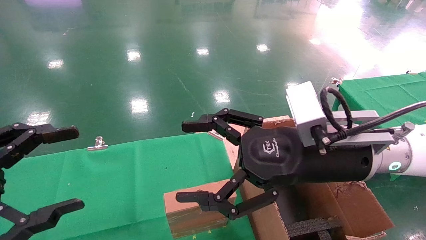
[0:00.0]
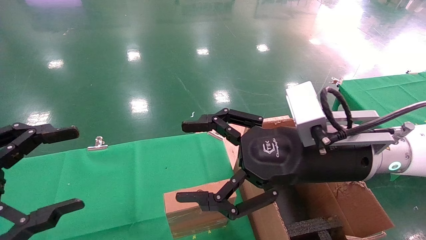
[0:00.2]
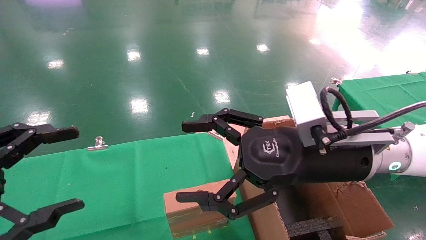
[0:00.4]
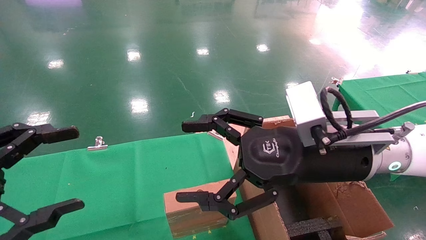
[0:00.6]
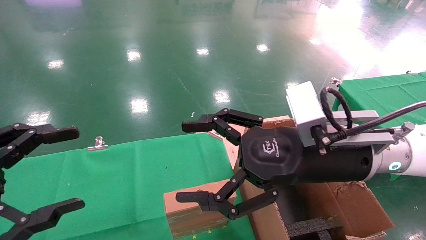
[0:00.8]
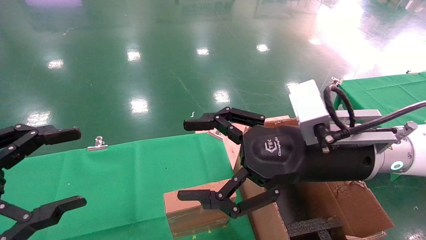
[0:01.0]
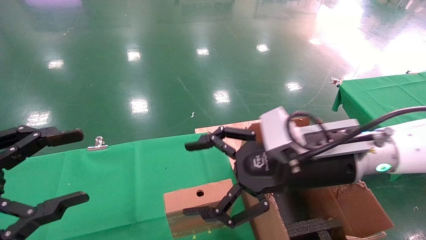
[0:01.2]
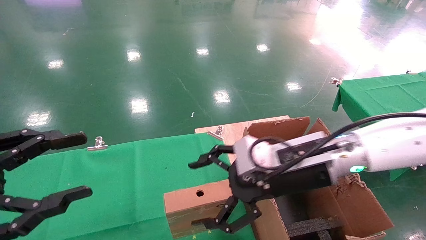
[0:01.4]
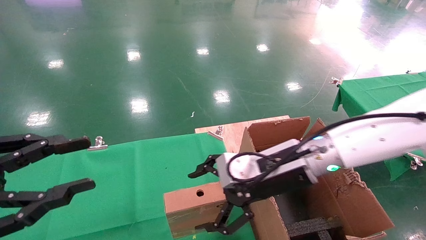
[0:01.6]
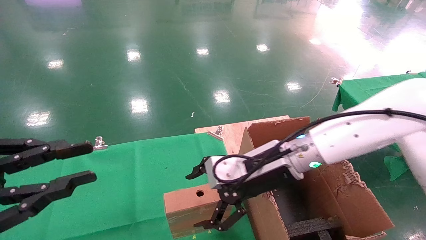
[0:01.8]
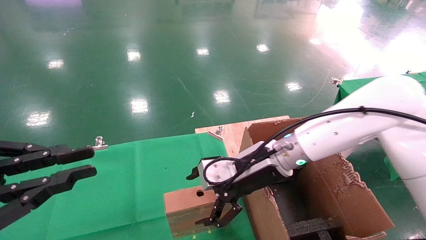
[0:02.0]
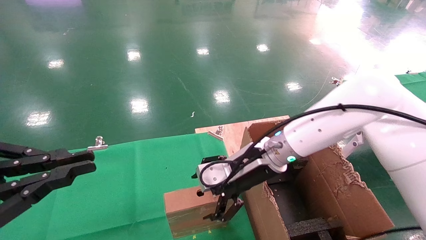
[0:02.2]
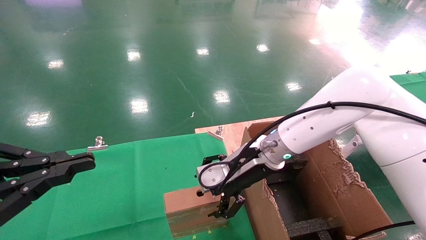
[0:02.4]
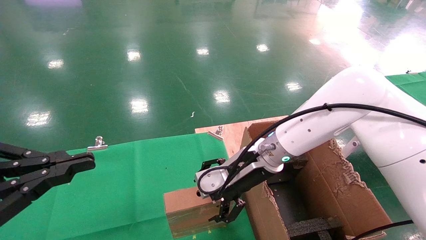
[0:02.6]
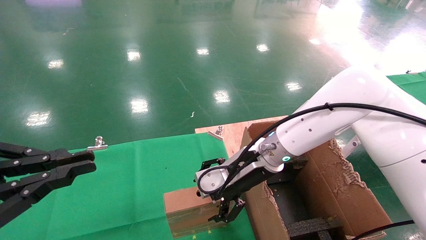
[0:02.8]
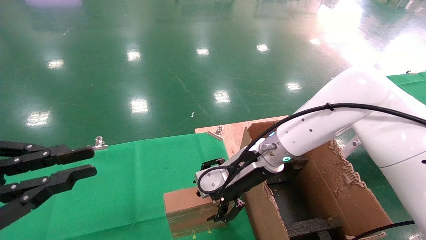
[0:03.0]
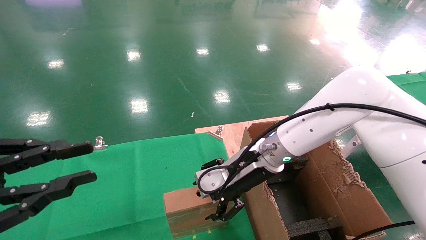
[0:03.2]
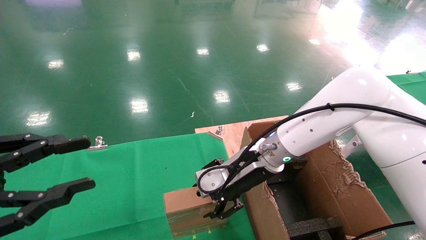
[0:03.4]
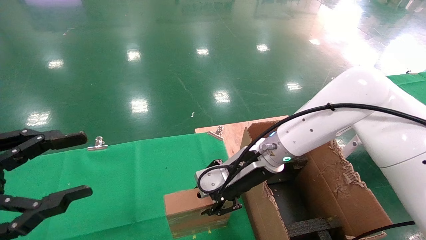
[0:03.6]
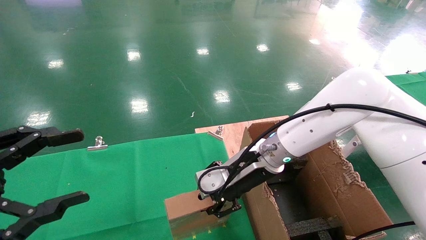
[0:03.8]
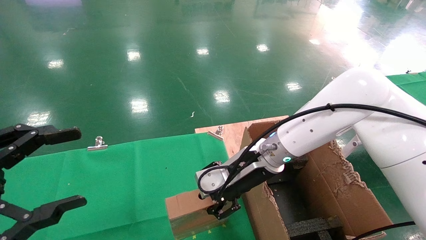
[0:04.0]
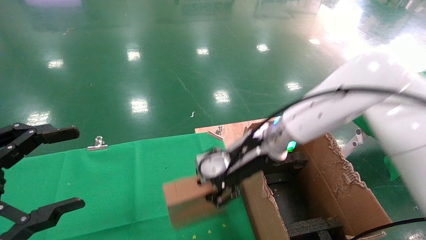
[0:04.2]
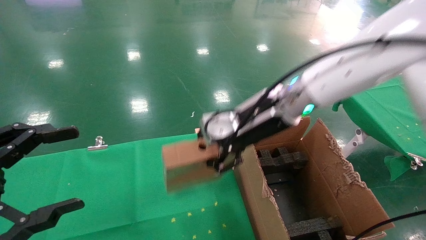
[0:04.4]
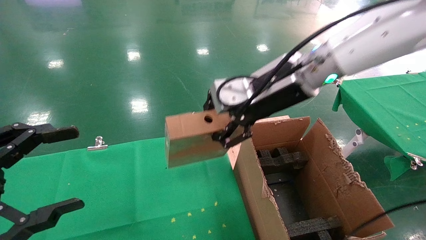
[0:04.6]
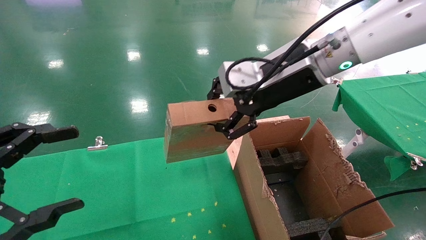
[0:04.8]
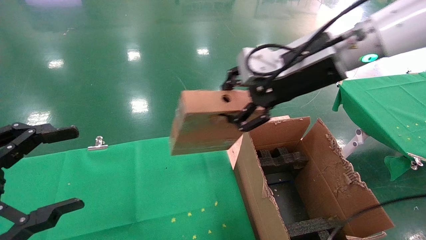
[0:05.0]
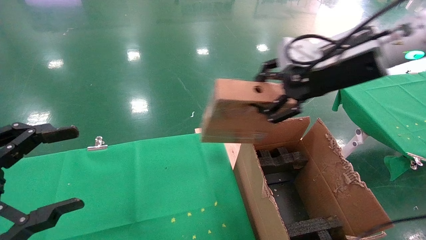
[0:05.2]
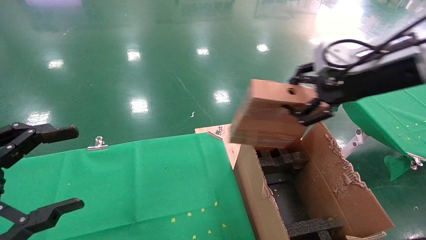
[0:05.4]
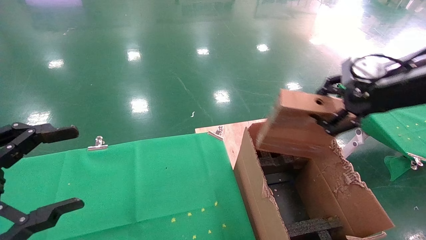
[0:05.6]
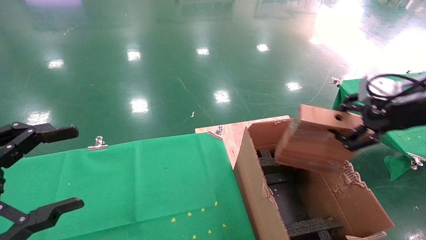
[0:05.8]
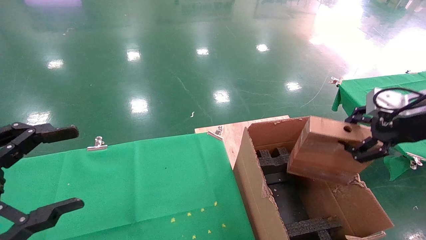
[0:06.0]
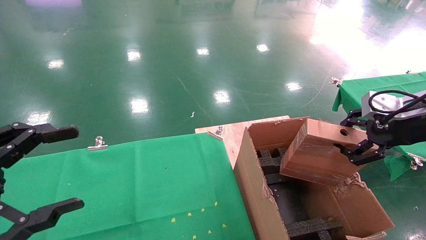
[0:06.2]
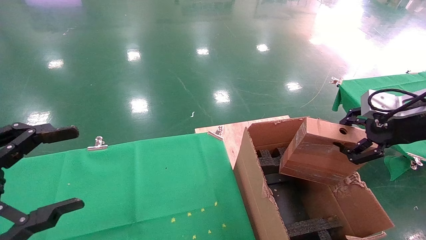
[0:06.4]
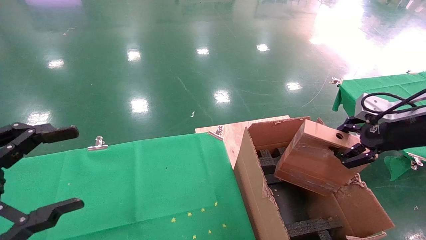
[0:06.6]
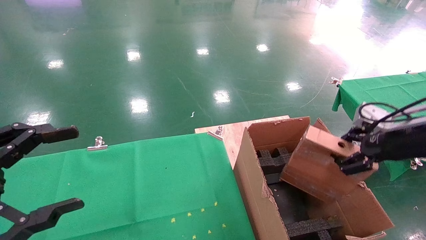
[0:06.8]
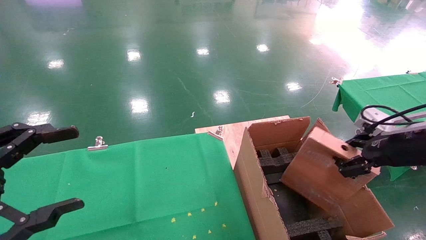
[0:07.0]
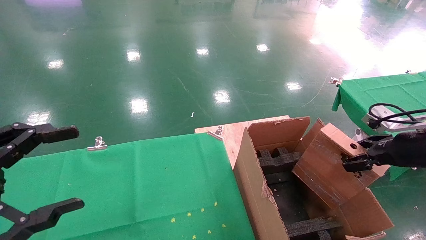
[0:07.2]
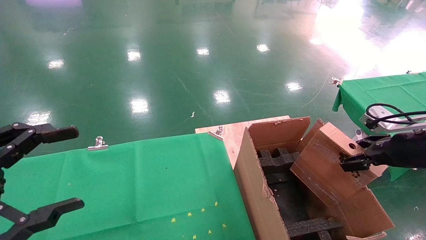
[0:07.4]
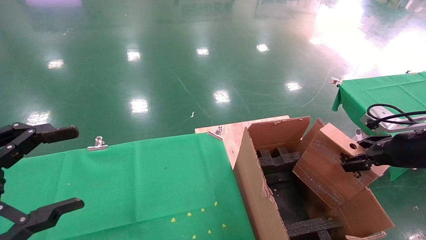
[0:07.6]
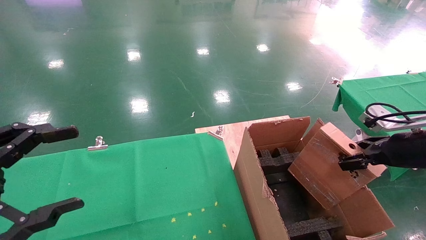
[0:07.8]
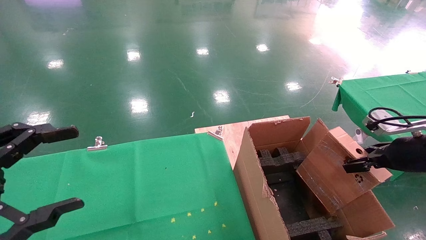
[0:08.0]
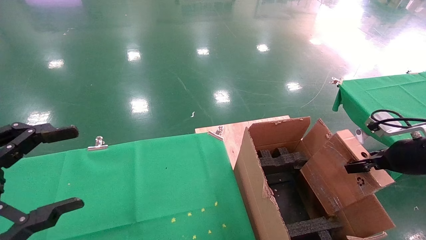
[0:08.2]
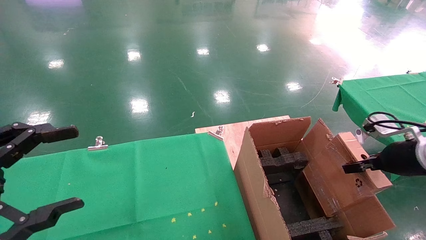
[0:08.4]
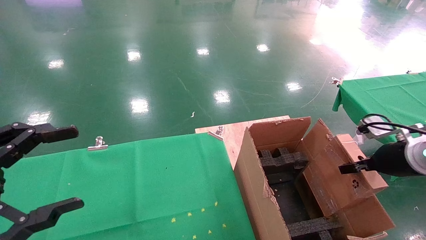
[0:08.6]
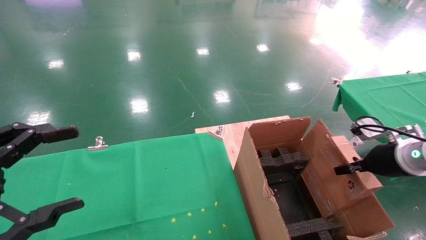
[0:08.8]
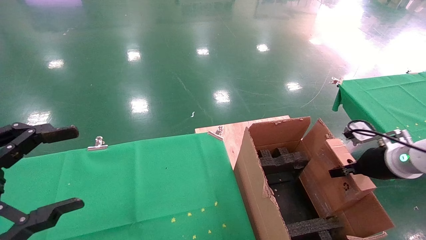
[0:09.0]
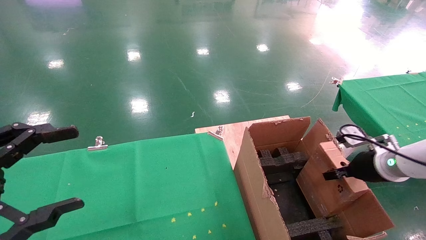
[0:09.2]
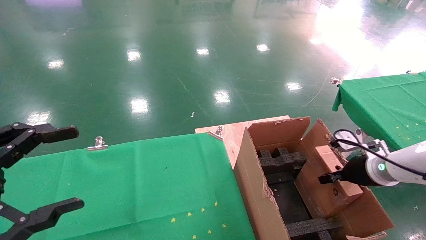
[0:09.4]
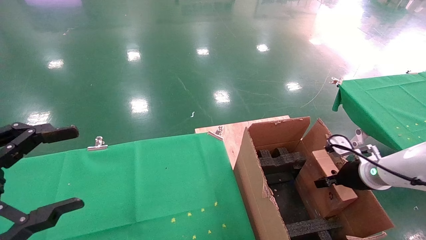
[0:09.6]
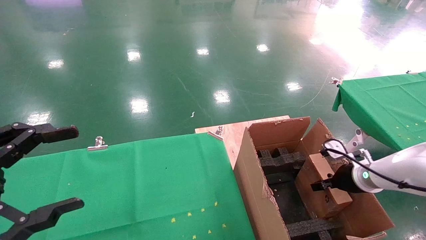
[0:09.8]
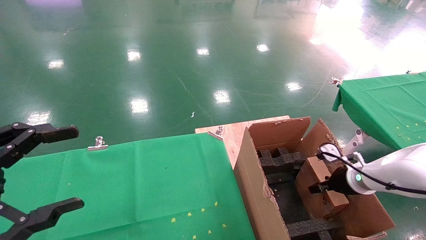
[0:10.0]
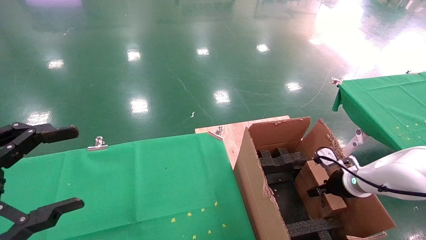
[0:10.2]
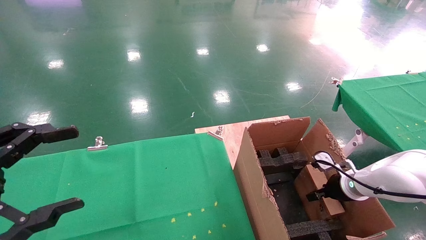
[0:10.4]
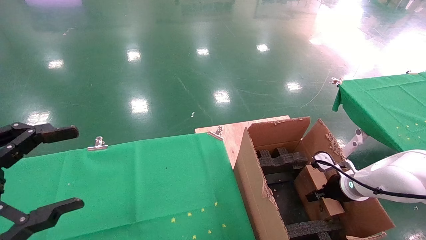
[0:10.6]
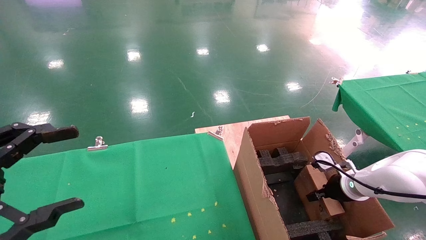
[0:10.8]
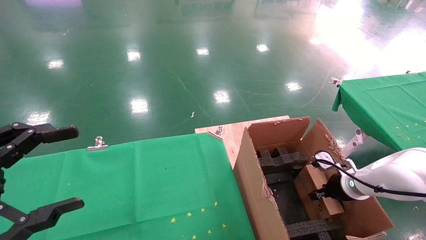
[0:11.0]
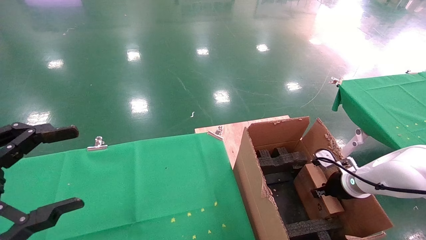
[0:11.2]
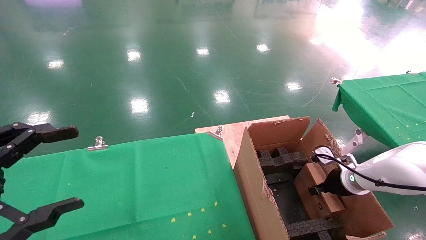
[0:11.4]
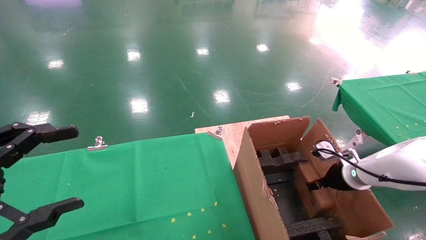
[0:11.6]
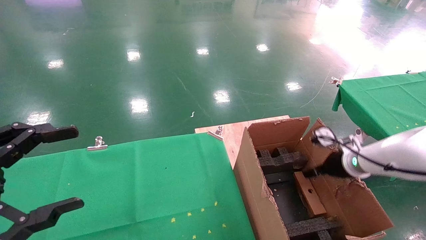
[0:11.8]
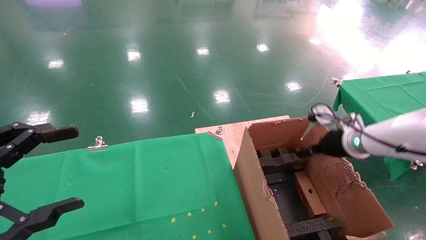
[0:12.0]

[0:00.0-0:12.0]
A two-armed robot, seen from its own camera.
Task of the whole recording: using a robotic arm to pick up a cardboard box and palace it the carton.
Step, 0:01.4 to 0:03.8: Pick up the mouse and the power cord paper box.
Step, 0:04.0 to 0:12.0: Place the mouse and the power cord paper box into the container.
0:00.0 to 0:01.6: The right gripper heads forward, covering approximately 5 cm. Meanwhile the left gripper closes.
0:01.6 to 0:03.0: The left gripper closes up. Meanwhile the right gripper moves forward, about 5 cm.
0:03.0 to 0:04.4: The left gripper opens up. The right gripper moves upward, roughly 10 cm, and closes its fingers.
0:04.4 to 0:06.0: The right gripper is displaced to the right by some 25 cm.
0:06.0 to 0:07.6: The right gripper moves downward, roughly 10 cm.
0:07.6 to 0:09.0: The right gripper heads downward and forward, covering roughly 10 cm.
0:09.0 to 0:10.4: The right gripper moves downward and forward, approximately 10 cm.
0:10.4 to 0:12.0: The right gripper shifts roughly 15 cm upward, and opens.

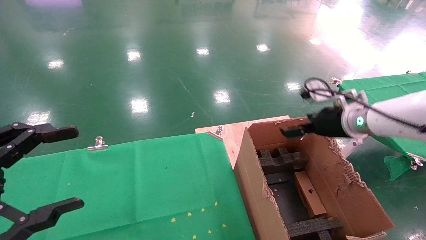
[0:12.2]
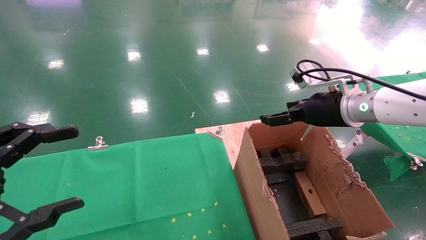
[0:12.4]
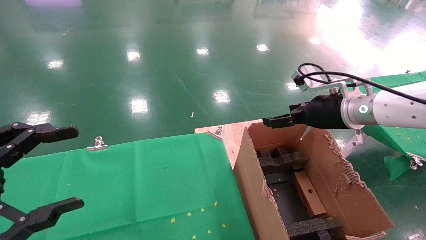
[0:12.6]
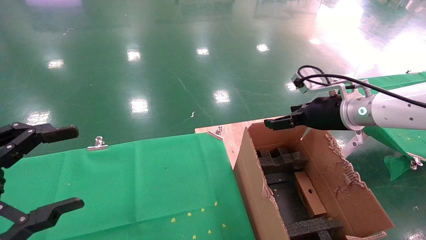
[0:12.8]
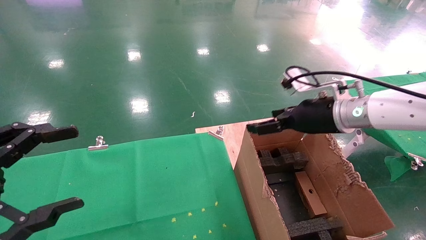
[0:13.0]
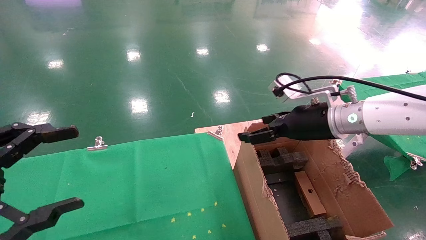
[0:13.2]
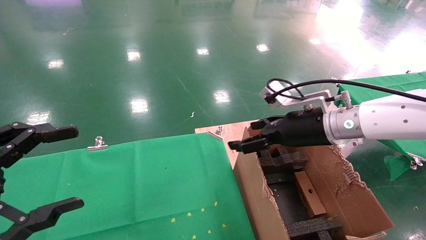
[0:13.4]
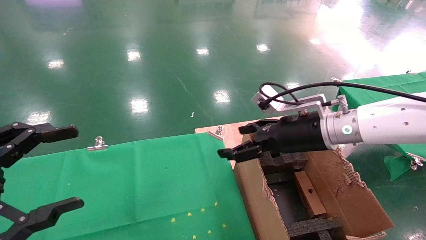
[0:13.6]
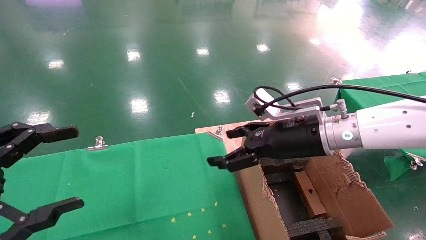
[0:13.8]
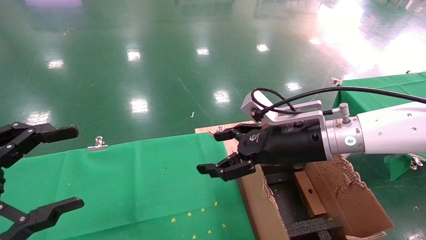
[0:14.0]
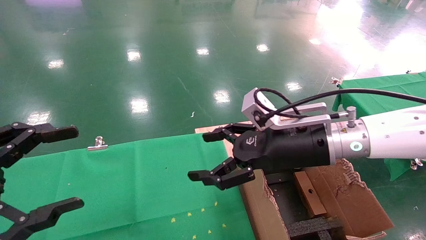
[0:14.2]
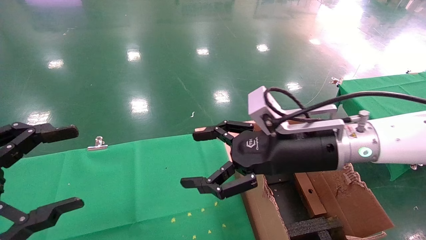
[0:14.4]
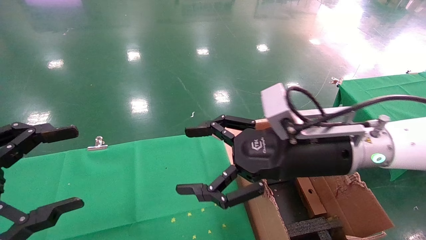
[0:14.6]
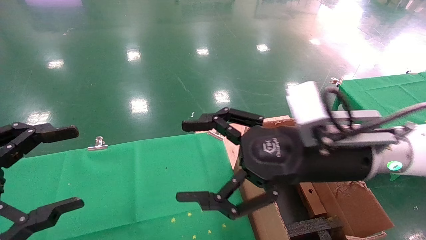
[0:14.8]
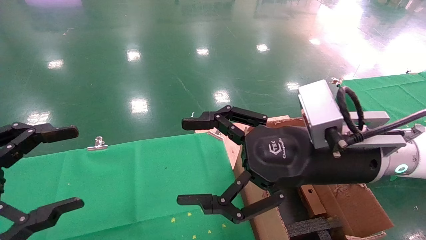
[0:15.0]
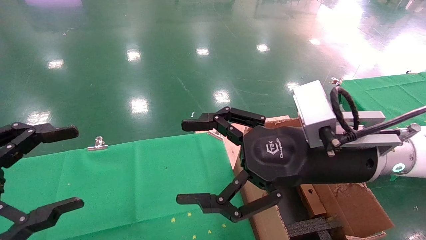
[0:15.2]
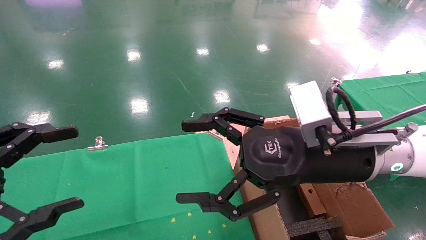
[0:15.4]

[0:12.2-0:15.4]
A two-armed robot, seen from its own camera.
Task of the whole recording: using a robotic arm to pick up a cardboard box and palace it the carton.
0:12.2 to 0:13.8: The right gripper is displaced to the left and backward by roughly 10 cm.
0:13.8 to 0:15.4: The right gripper shifts approximately 10 cm backward.
